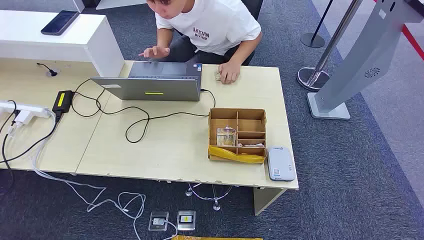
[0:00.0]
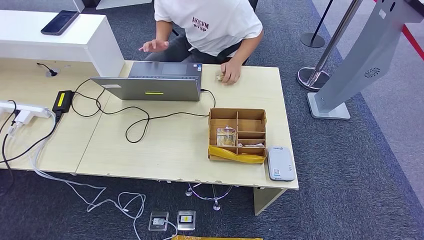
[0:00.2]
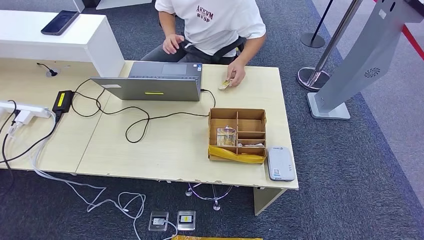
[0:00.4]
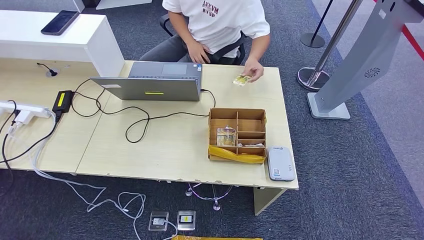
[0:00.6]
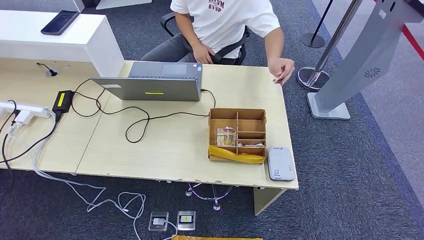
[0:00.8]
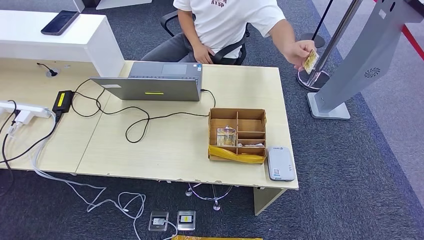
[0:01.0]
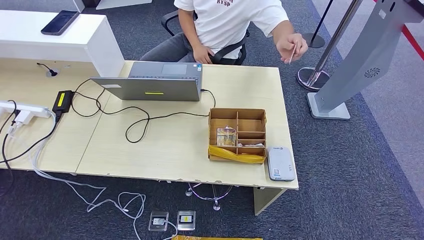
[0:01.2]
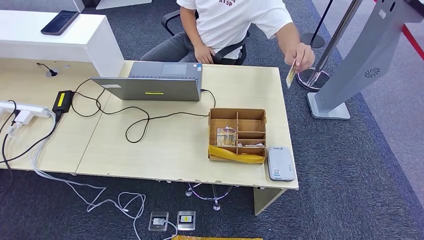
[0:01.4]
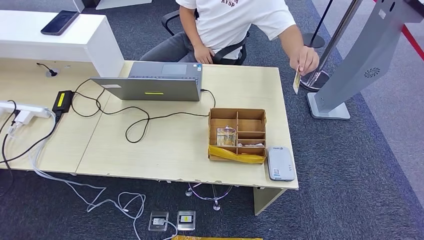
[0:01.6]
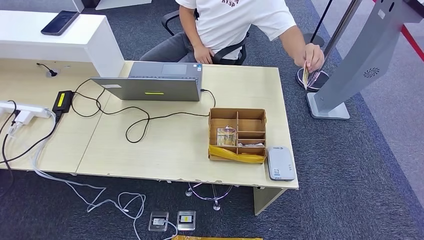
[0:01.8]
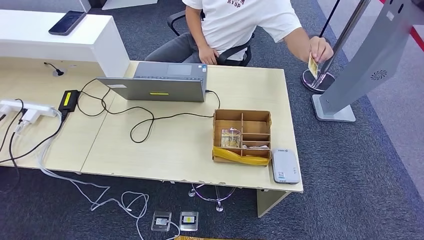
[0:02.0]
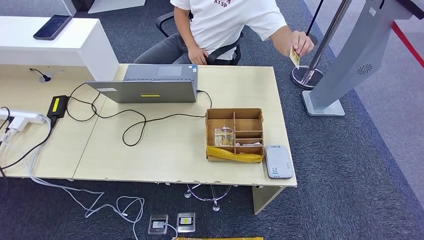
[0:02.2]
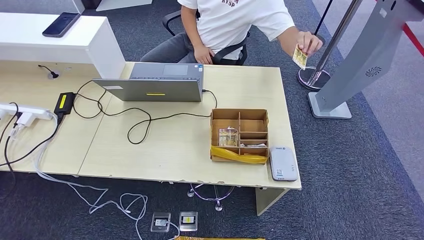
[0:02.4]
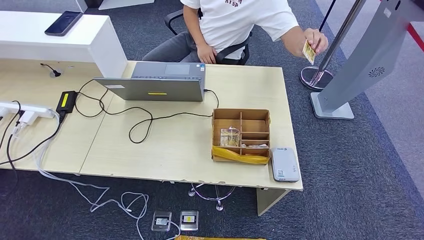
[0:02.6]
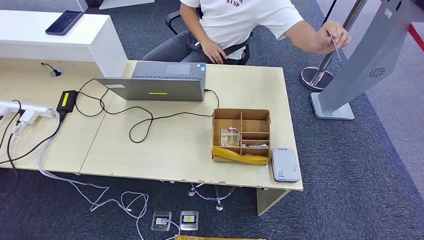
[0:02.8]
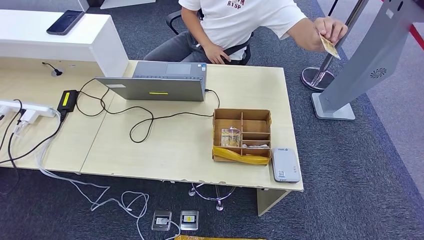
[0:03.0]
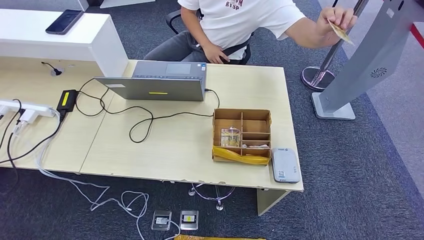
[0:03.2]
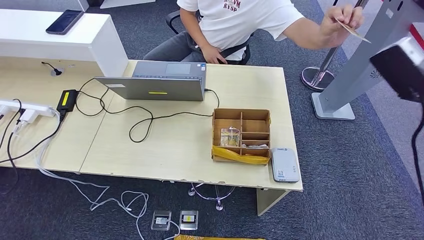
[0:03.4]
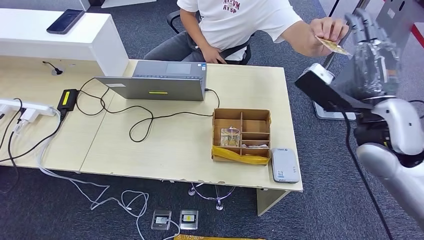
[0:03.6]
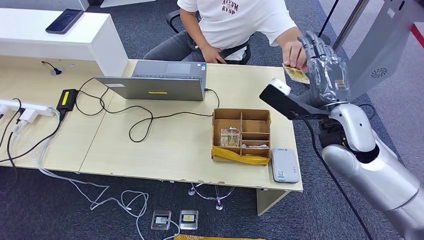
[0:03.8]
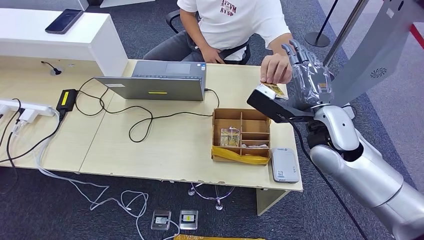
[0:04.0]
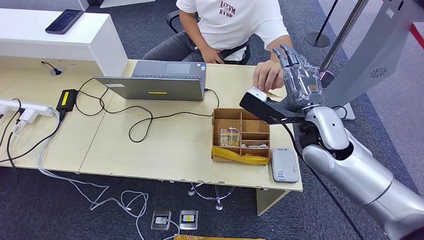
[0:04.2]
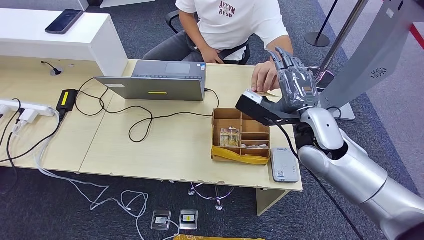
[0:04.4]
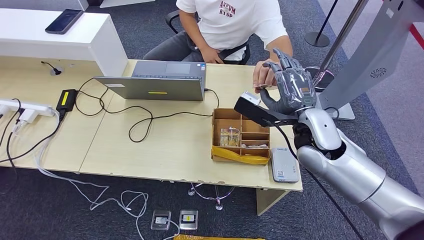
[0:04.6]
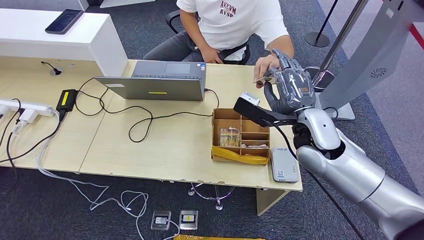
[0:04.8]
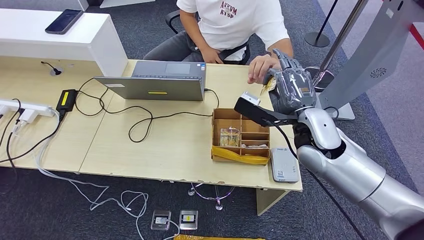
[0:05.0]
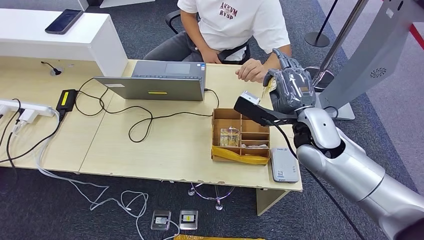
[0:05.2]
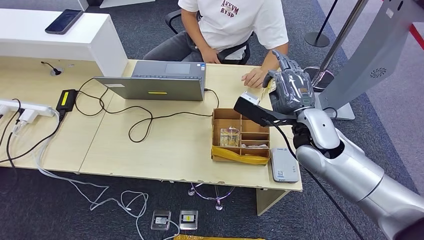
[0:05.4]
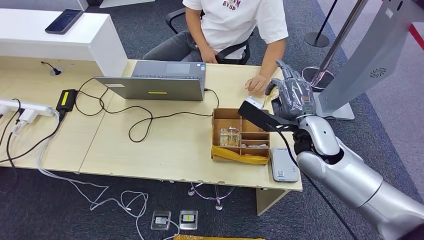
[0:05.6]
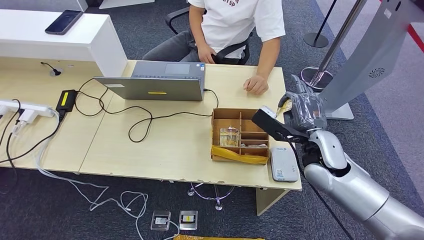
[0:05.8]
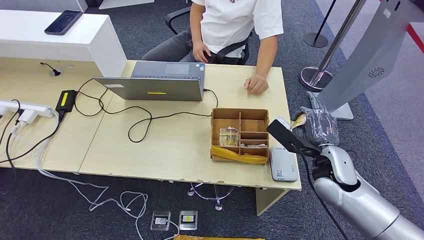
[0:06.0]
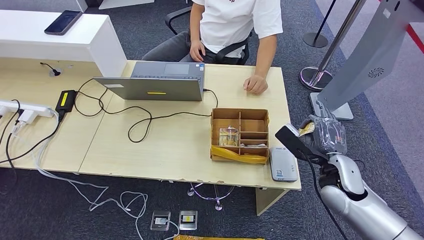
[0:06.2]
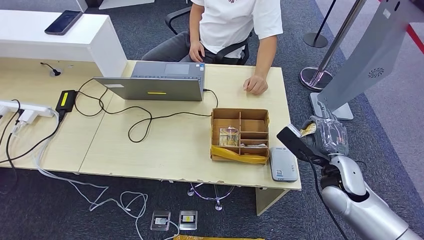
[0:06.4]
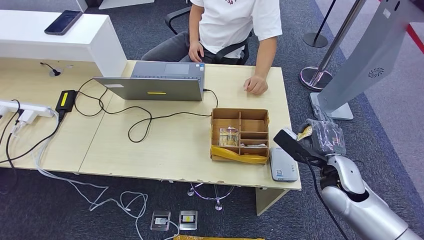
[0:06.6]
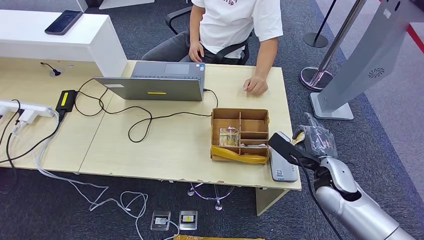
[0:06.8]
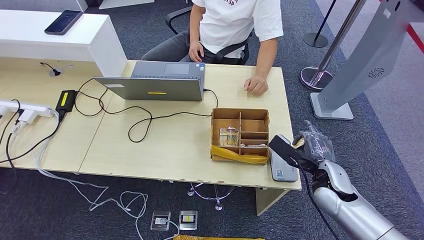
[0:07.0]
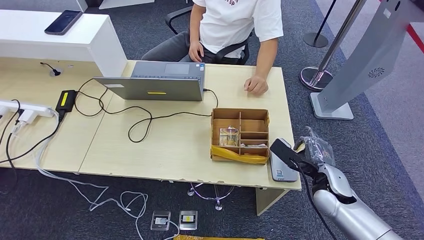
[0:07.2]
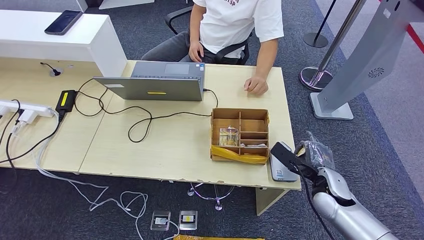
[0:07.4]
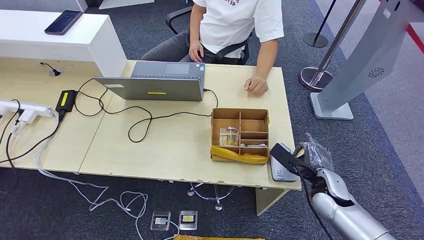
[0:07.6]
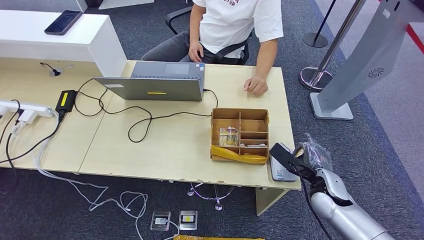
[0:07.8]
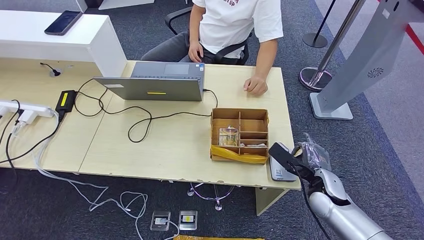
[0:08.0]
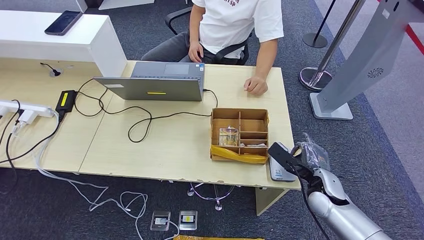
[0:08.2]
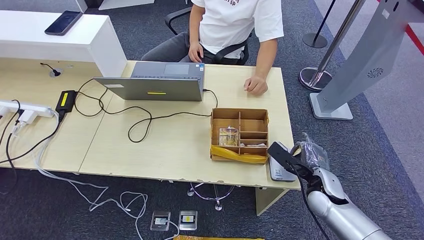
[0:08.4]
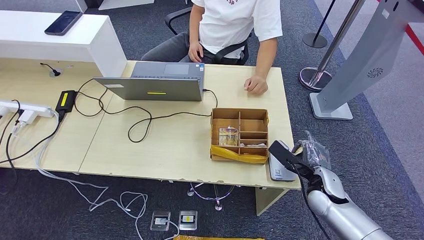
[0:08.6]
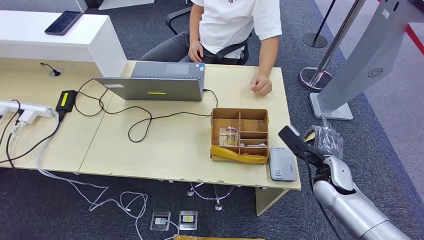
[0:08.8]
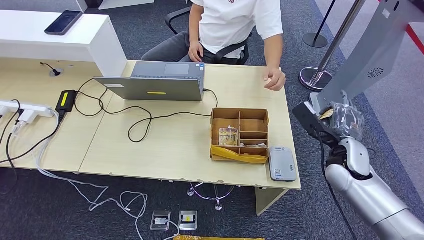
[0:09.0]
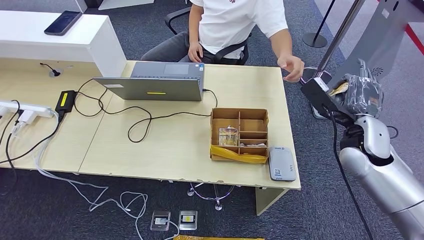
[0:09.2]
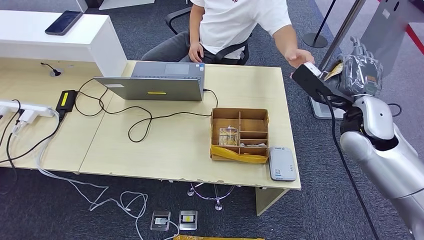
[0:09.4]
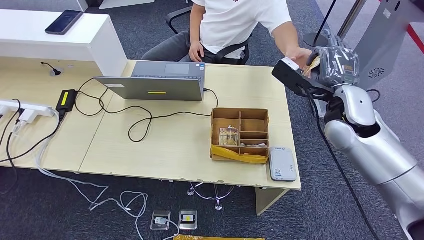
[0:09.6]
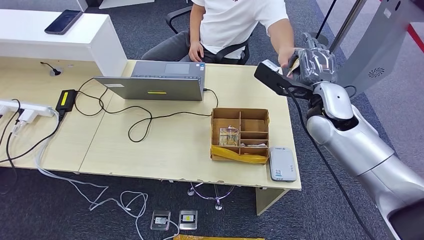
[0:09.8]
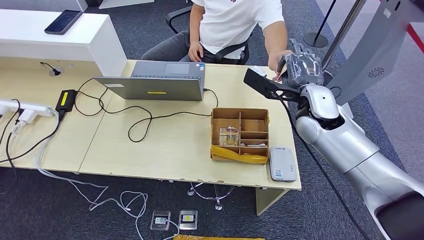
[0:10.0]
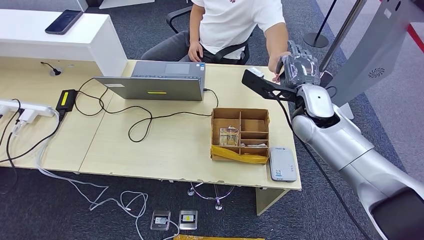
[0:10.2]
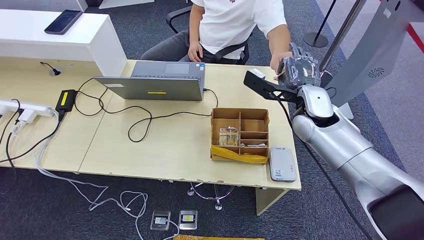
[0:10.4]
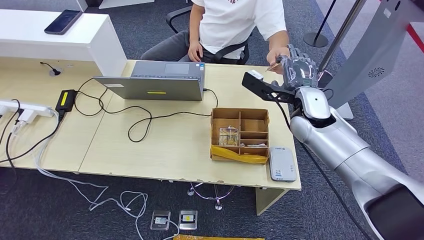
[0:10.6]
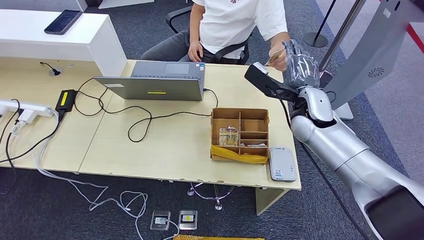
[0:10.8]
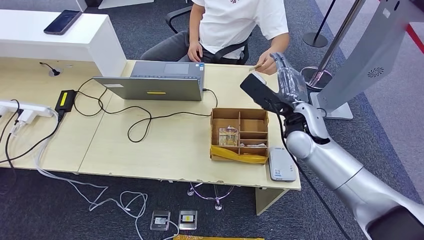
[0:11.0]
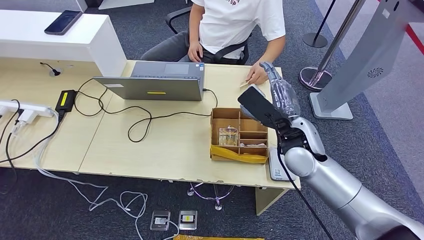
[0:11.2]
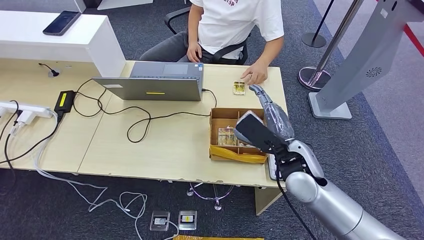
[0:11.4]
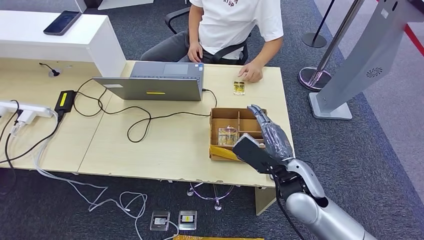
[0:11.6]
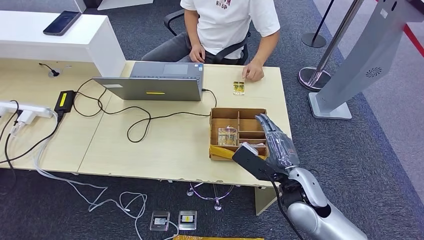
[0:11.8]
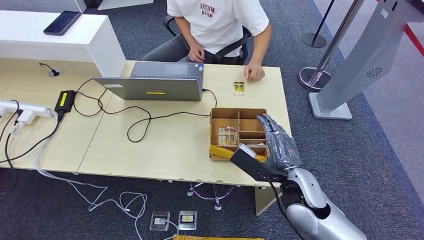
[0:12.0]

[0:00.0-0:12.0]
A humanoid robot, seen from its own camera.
Step, 0.0 to 5.8 s: Take the ID card from the person's hand.
Step, 6.0 to 7.4 s: Place the ID card on the card reader.
Step, 7.6 to 10.6 s: Hand the ID card to the person.
Step, 10.8 to 11.4 s: Hand the room key to the person.
1.6 to 3.0 s: The right hand is displaced upward by roughly 60 cm.
3.0 to 4.4 s: The right hand is displaced to the left, downward and forward by about 30 cm.
4.4 to 6.0 s: The right hand shifts about 10 cm downward and to the right.
6.0 to 7.6 s: The right hand heads downward, covering approximately 10 cm.
7.6 to 9.0 s: The right hand is displaced upward by some 10 cm.
9.0 to 10.4 s: The right hand shifts approximately 15 cm to the left, upward and forward.

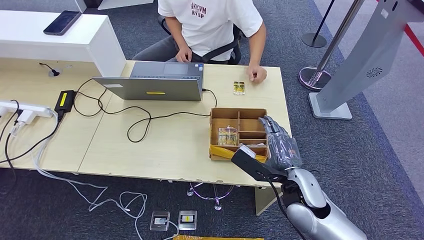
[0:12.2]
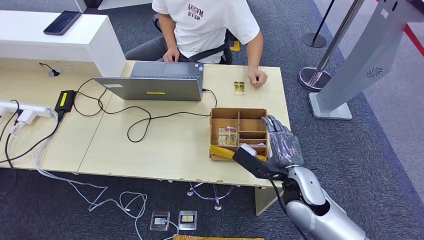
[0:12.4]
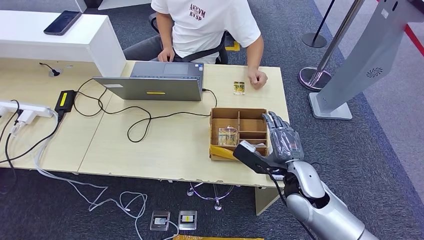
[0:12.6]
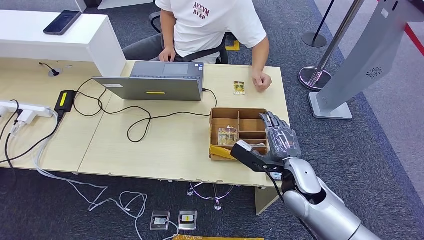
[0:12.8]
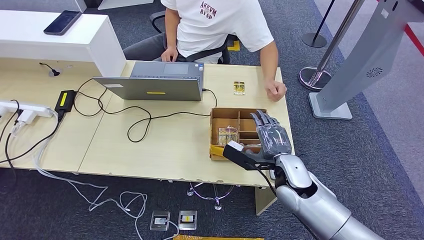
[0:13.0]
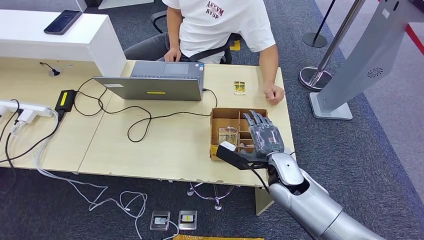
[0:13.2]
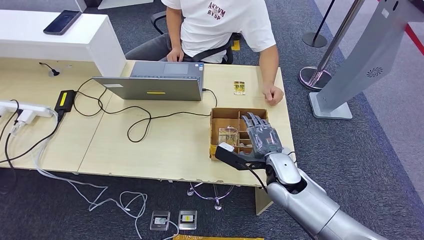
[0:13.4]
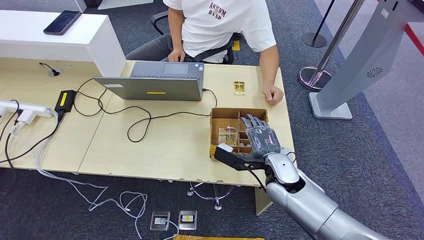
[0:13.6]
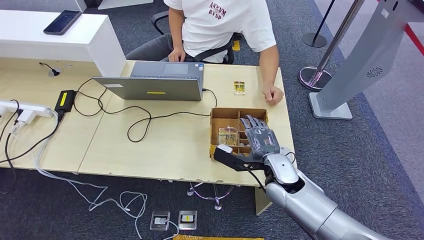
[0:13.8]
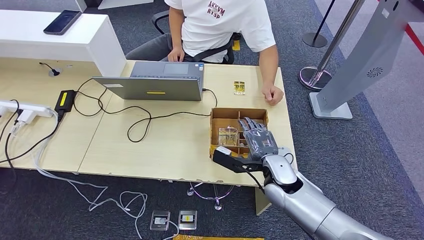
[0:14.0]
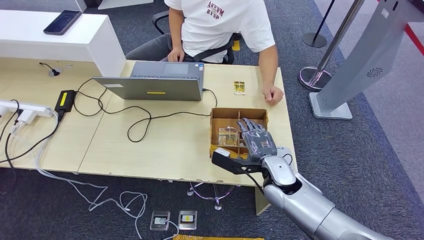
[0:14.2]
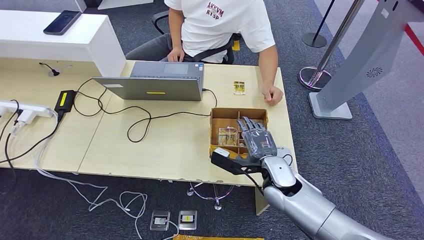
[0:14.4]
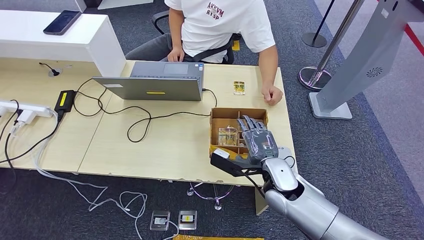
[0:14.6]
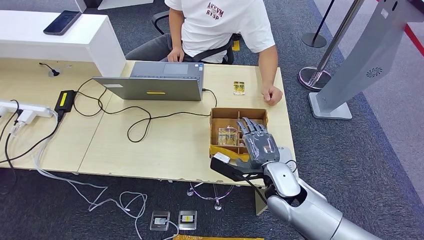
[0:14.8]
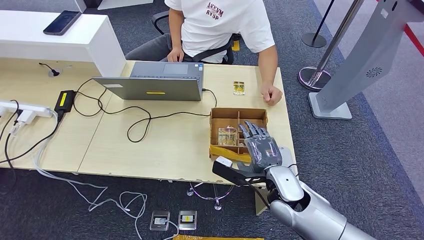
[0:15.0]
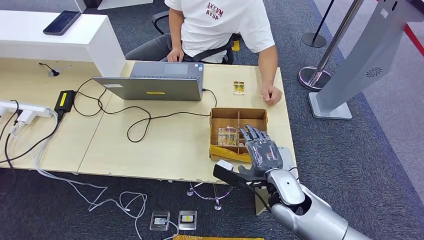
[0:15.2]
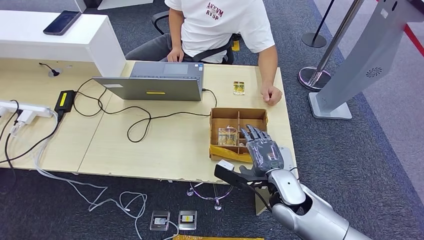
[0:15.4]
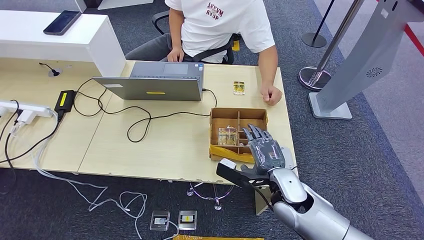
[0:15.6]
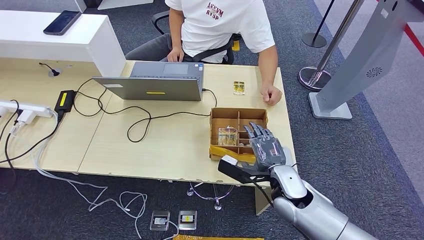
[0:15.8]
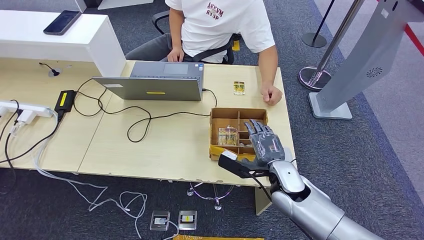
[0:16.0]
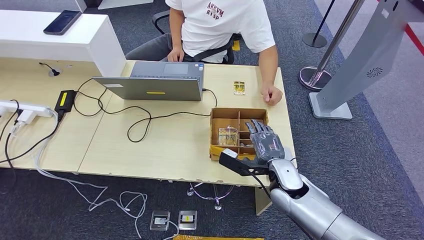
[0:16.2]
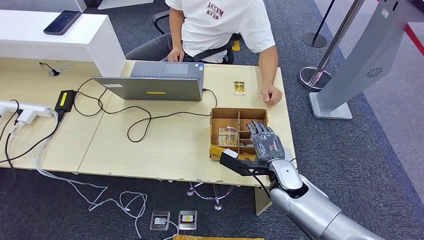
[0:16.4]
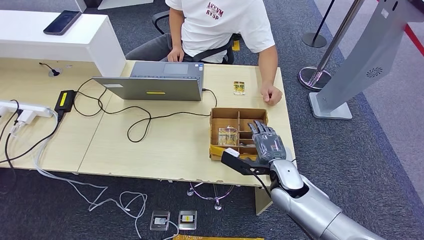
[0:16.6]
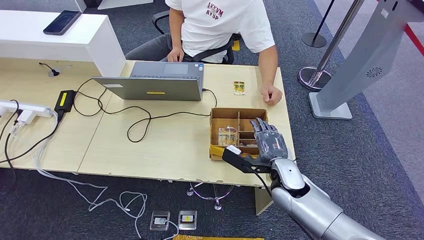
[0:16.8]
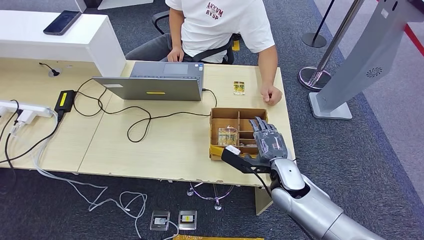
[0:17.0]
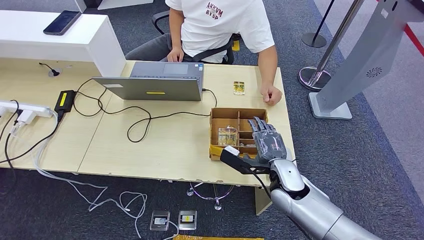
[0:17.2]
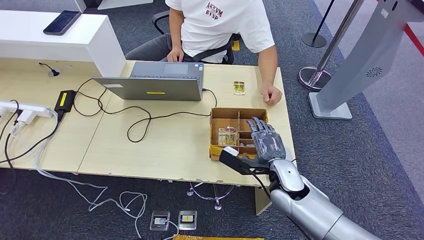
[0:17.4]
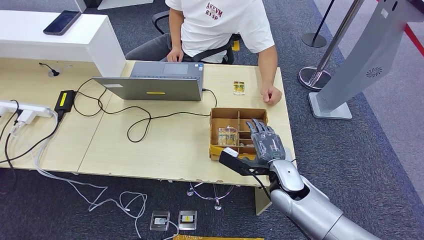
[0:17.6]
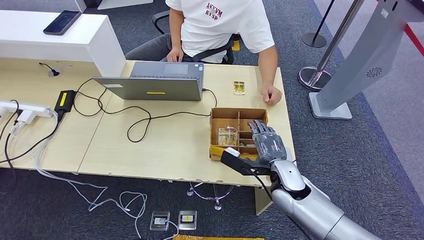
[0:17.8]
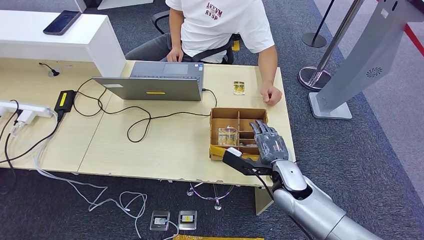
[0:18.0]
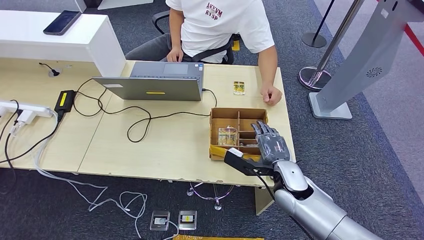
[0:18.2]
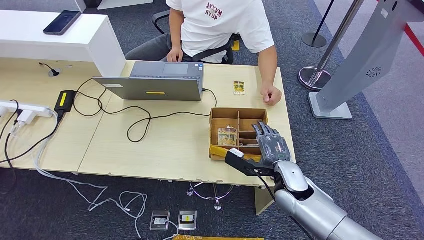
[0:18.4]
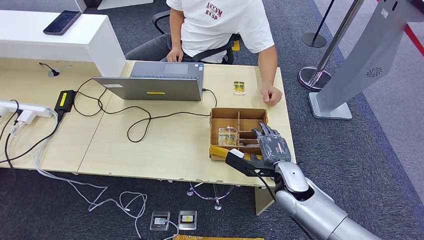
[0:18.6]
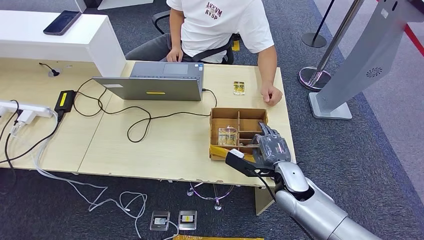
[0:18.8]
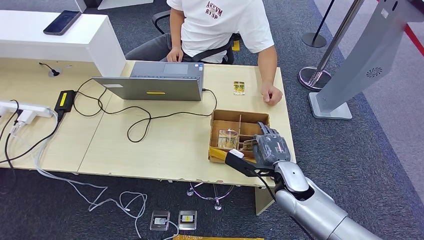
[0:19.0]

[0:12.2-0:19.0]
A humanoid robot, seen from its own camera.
12.2 to 13.6 s: The right hand heads forward, covering some 5 cm.
13.6 to 16.2 s: The hands move only a little.
16.2 to 17.6 s: Both hands stay put.
17.6 to 19.0 s: The hands make only small movements.
